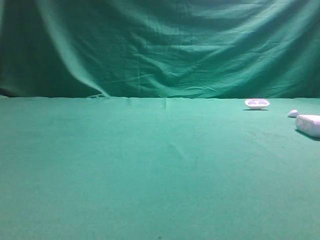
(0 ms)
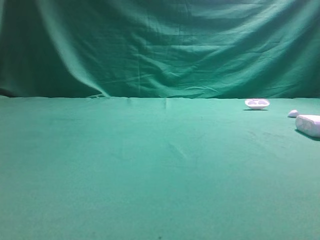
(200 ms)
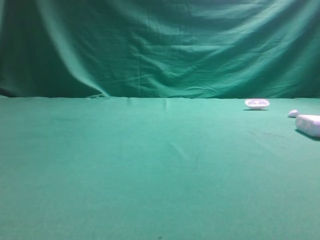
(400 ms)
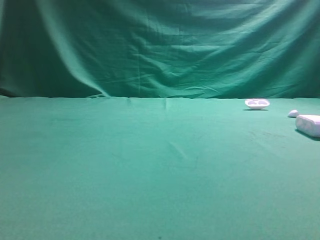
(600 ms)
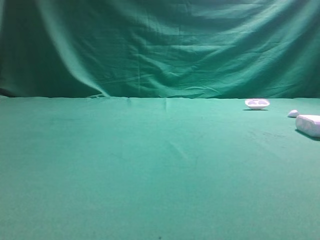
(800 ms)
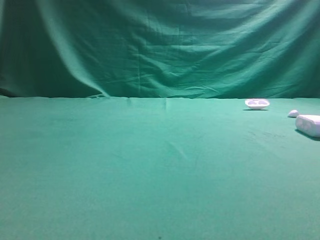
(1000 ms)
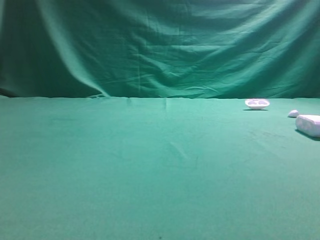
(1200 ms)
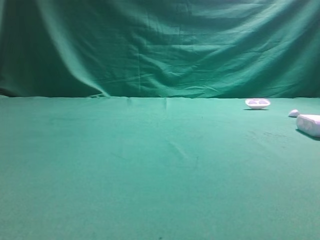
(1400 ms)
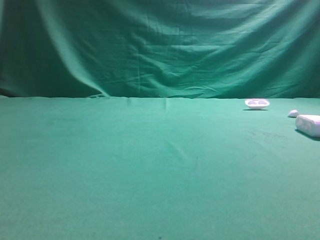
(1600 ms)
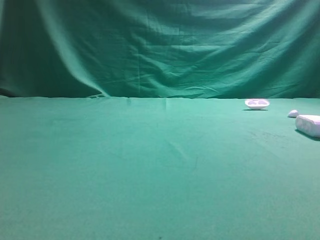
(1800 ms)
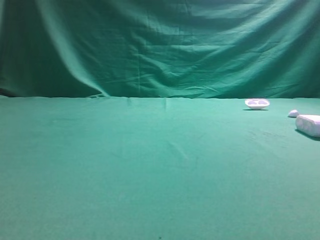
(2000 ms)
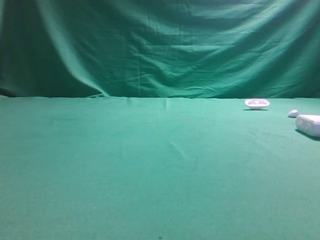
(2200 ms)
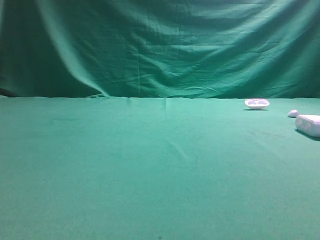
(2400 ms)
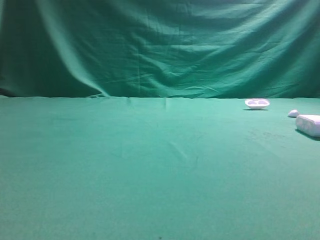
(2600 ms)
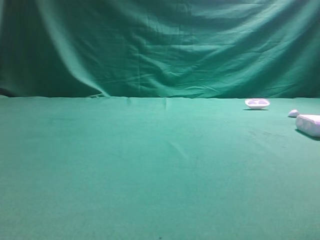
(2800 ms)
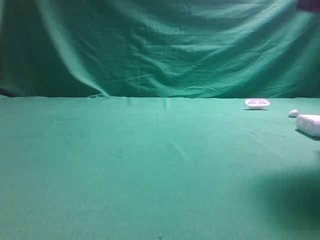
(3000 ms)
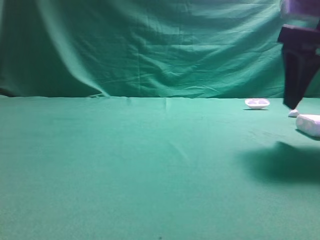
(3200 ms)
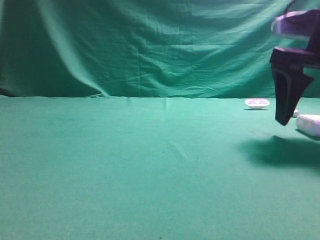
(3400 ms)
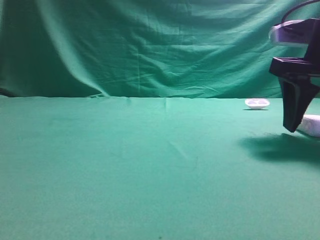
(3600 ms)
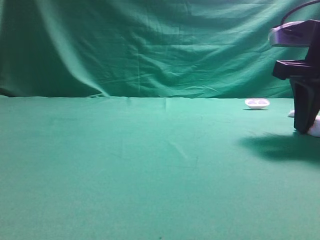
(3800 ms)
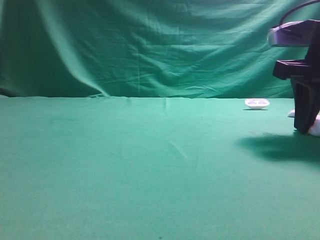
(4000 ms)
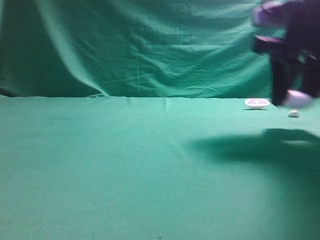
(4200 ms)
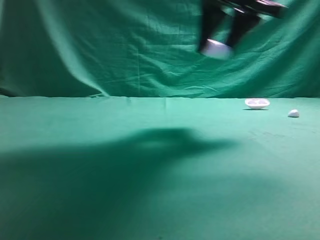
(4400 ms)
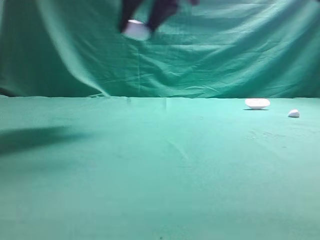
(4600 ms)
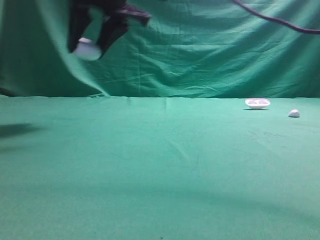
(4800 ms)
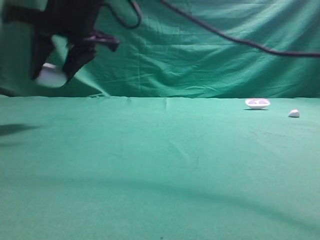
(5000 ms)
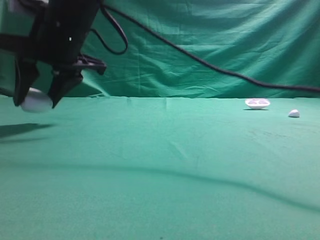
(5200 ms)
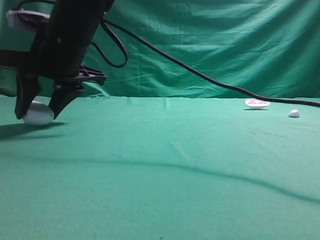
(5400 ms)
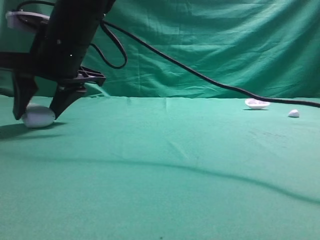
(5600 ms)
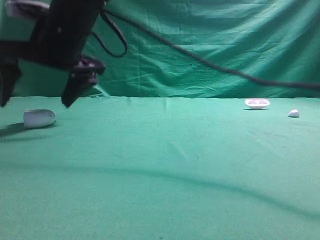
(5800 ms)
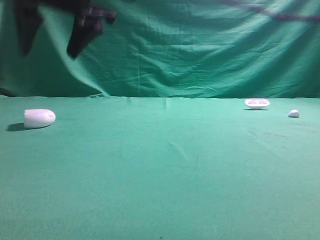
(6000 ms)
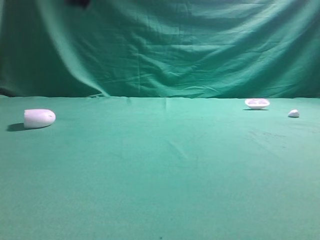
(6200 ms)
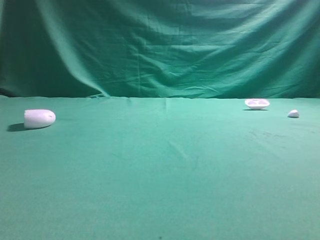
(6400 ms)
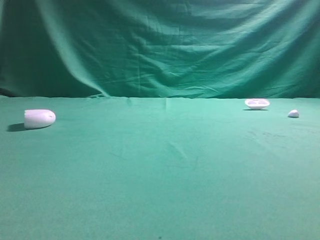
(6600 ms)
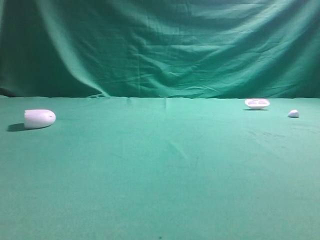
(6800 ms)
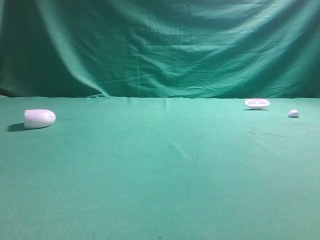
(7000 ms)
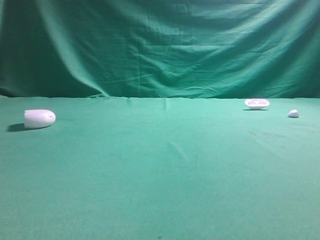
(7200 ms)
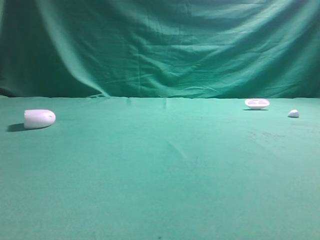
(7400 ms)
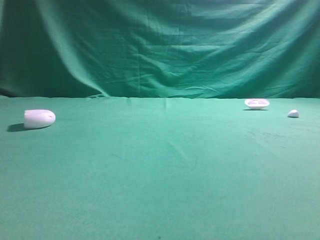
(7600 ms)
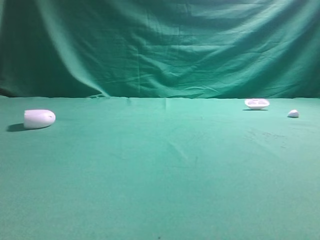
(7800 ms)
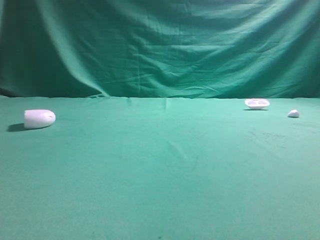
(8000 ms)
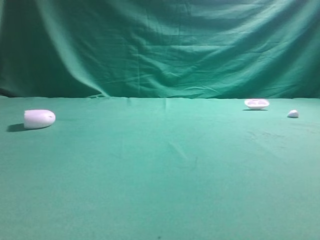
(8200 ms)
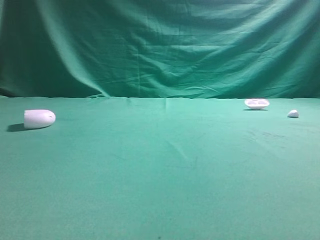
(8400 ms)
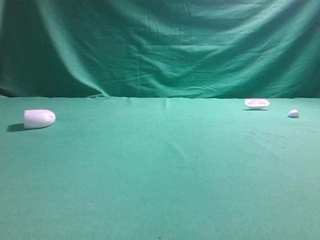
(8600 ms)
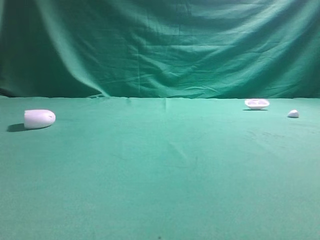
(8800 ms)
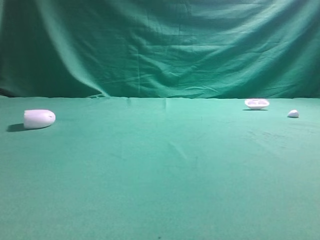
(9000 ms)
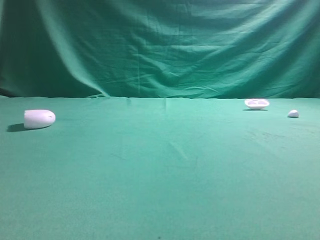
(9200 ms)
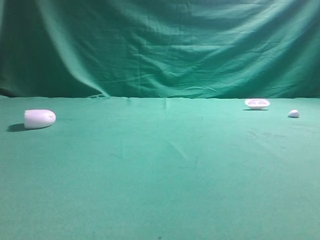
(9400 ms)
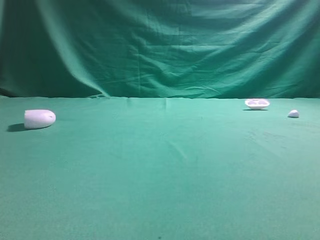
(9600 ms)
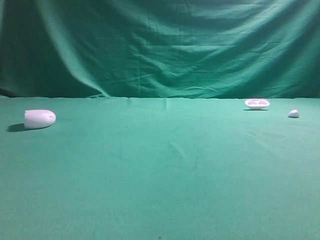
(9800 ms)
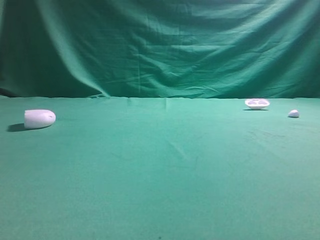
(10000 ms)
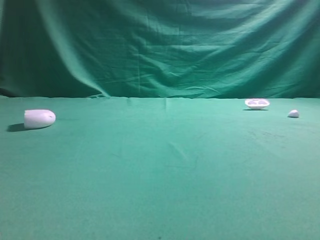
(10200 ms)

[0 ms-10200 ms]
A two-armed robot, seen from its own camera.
Step, 0 ms to 4200 ms: Grasp the Bluetooth earphone case.
Step, 4400 ms to 6000 ms: Place bluetooth earphone case on the left side of the table.

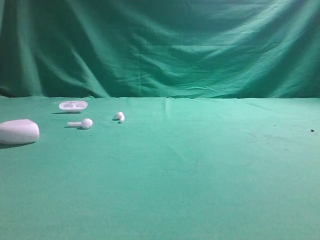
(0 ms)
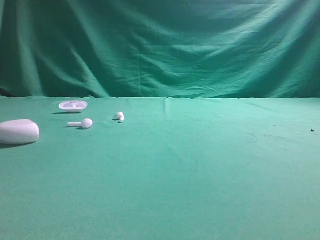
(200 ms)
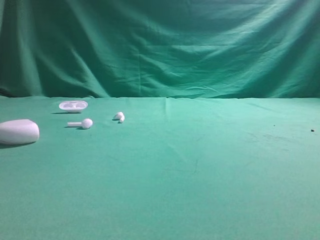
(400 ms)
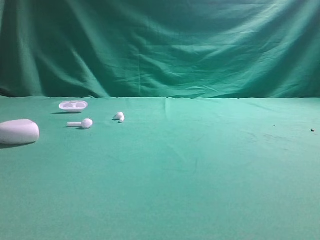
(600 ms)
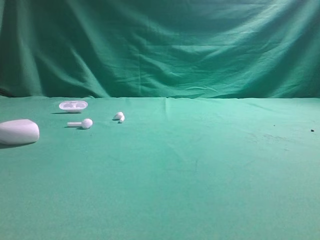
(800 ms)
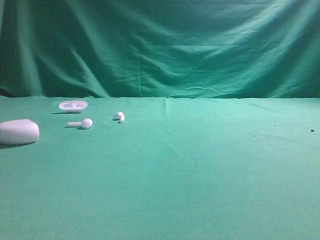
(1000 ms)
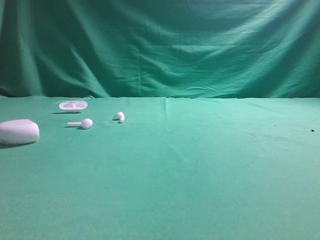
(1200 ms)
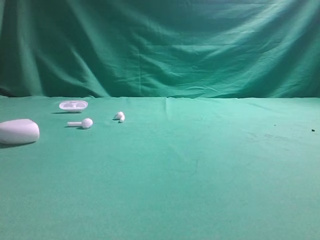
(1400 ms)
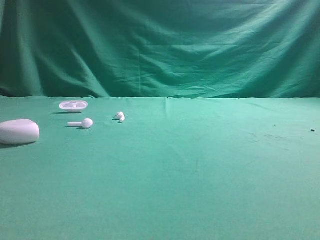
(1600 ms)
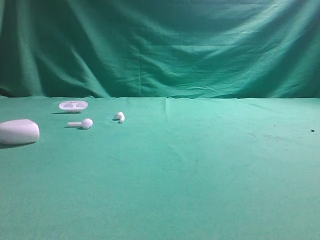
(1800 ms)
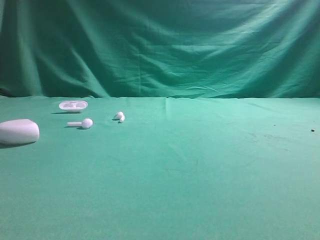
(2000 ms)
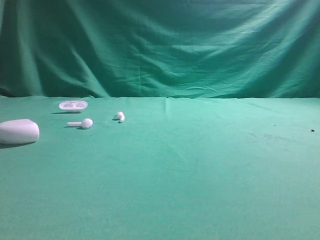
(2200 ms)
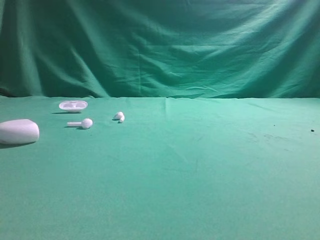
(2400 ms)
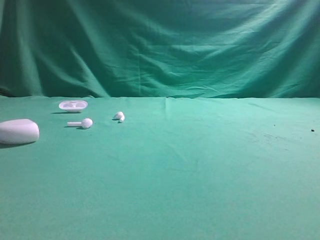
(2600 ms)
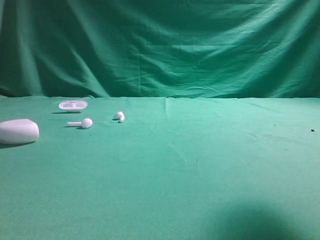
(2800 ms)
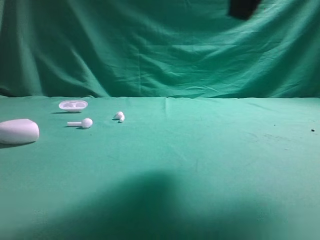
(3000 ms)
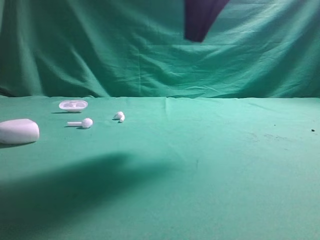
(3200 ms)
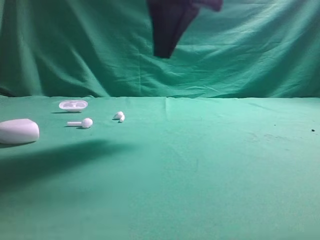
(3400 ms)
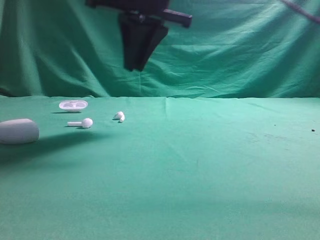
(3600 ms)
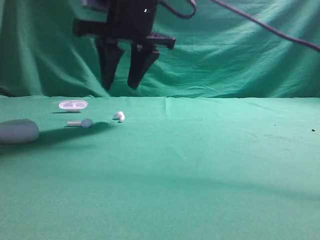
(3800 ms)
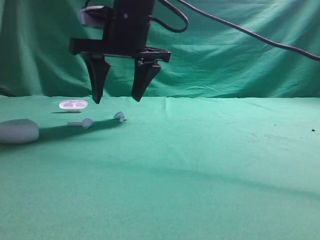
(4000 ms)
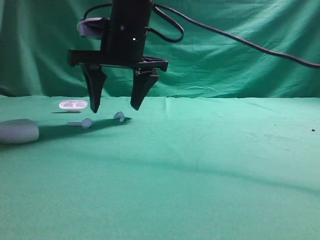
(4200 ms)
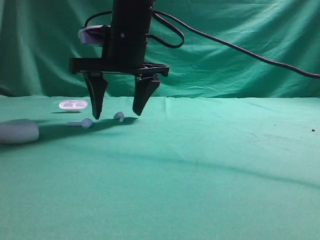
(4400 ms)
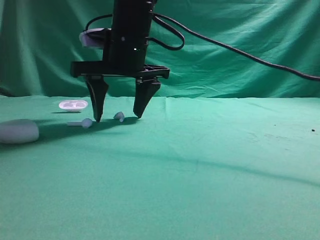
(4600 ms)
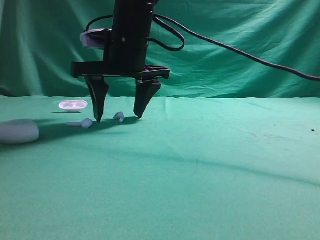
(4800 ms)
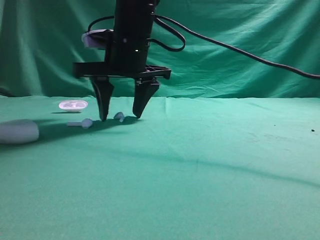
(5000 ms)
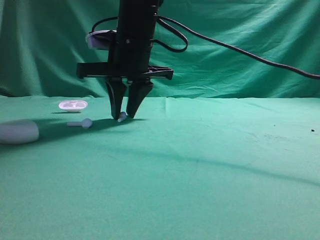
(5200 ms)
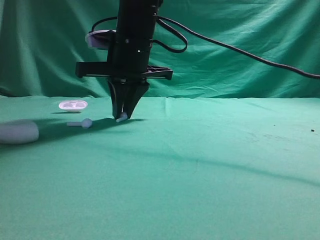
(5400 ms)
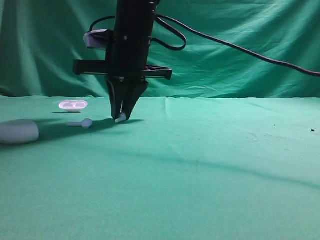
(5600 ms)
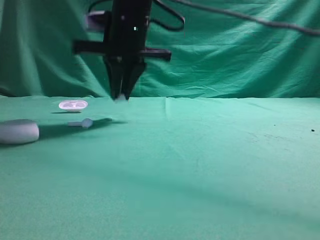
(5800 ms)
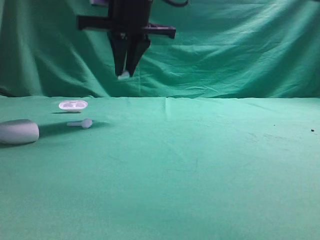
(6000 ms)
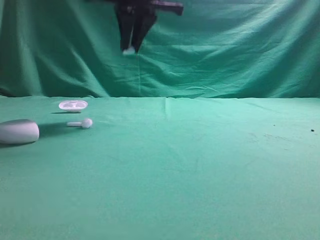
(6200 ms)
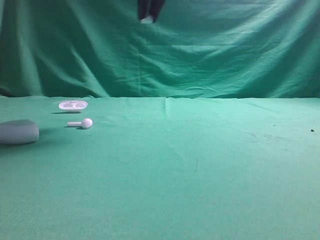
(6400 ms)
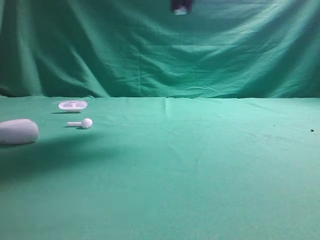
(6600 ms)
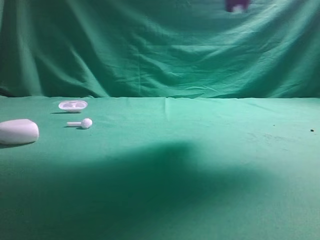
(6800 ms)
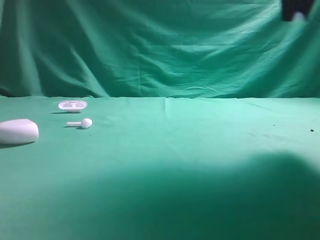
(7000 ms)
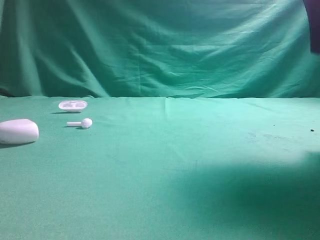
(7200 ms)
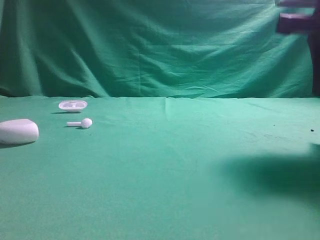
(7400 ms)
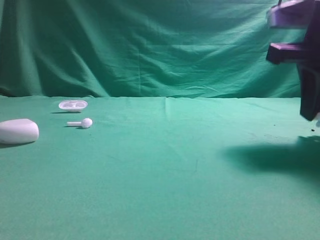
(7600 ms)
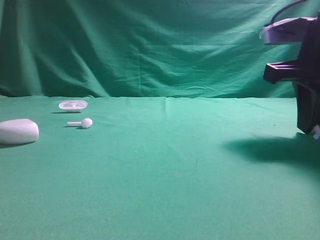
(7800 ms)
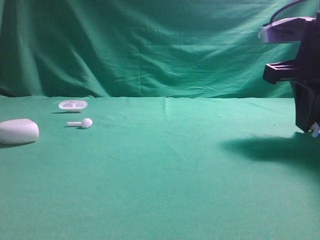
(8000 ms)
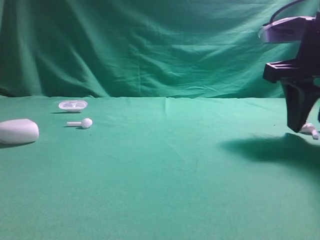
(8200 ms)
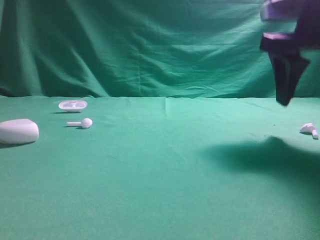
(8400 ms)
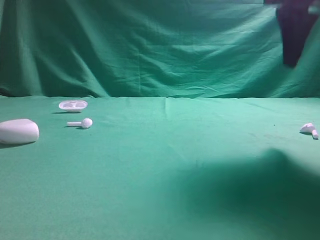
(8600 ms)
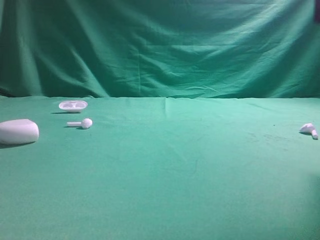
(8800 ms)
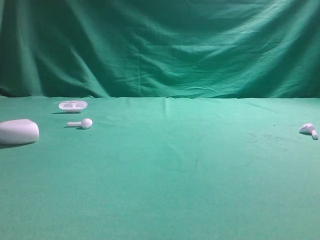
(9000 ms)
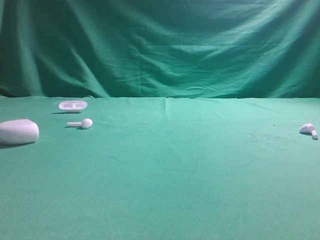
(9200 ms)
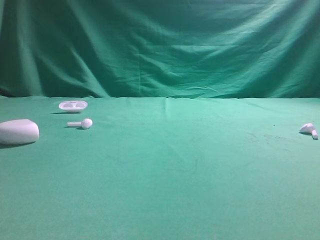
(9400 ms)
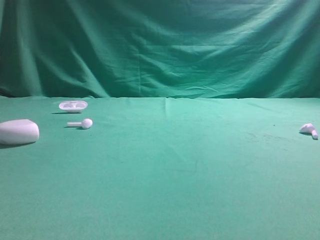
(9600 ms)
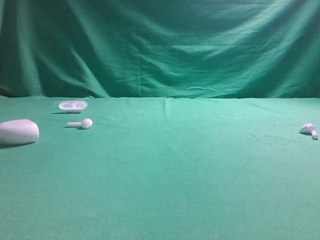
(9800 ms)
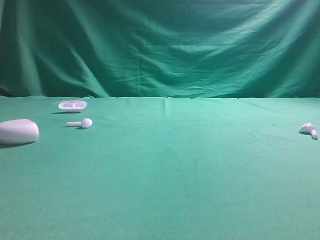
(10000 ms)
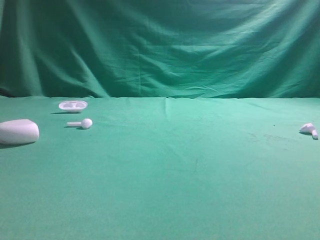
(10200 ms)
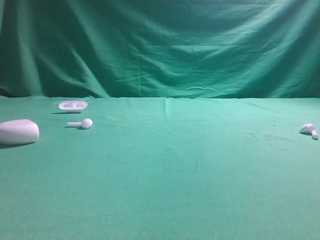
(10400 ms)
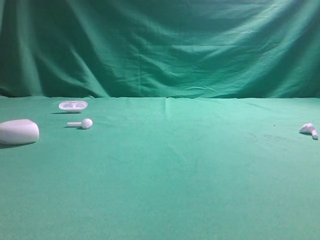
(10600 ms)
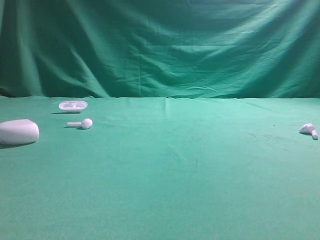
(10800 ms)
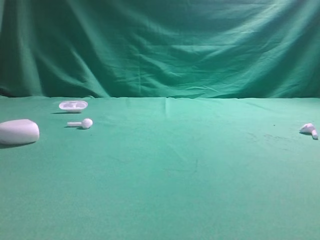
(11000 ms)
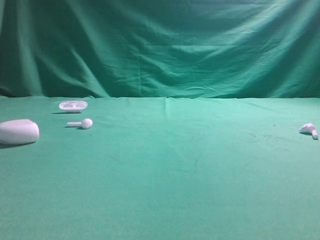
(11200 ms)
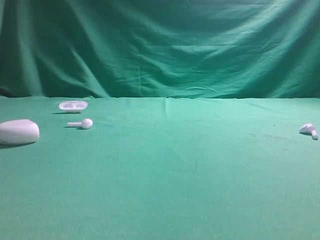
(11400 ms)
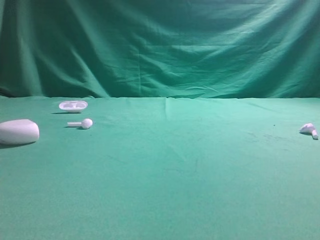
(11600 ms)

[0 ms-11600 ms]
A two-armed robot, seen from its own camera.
Step, 0 ms to 6000 ms: Grasp the Bluetooth earbud.
Step, 6200 ms to 8600 ms: Place bluetooth earbud on the right side of the table.

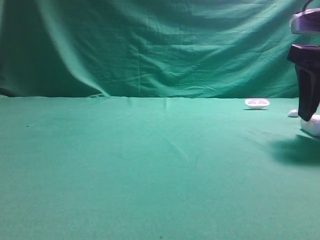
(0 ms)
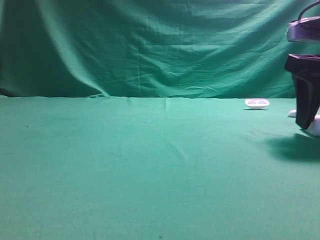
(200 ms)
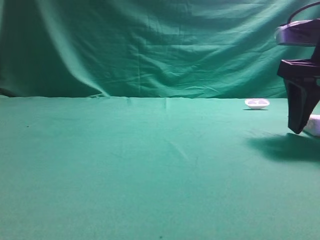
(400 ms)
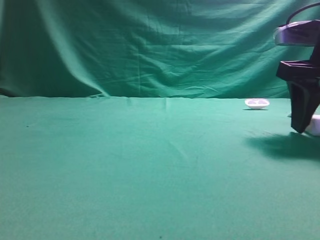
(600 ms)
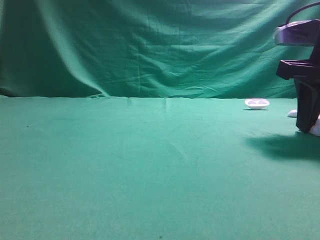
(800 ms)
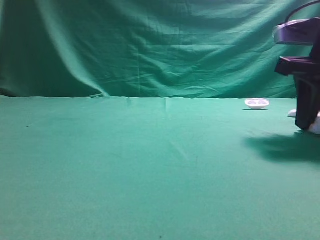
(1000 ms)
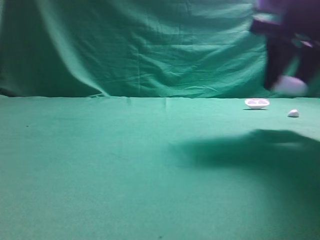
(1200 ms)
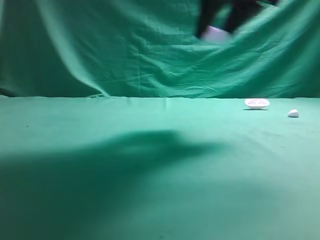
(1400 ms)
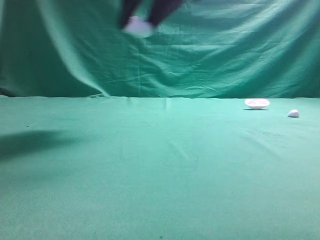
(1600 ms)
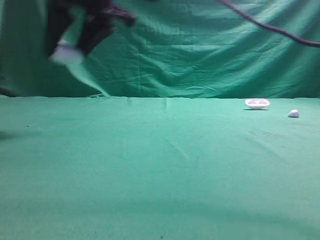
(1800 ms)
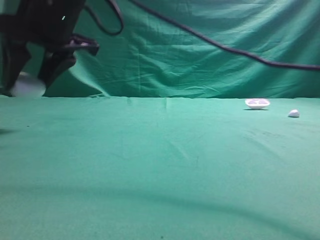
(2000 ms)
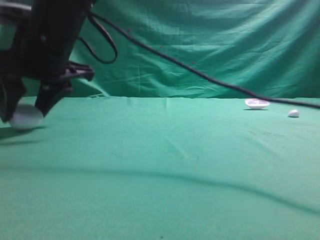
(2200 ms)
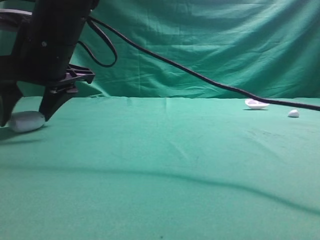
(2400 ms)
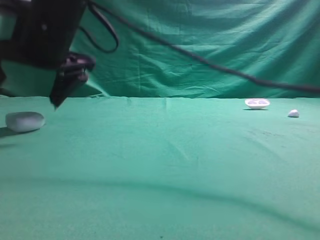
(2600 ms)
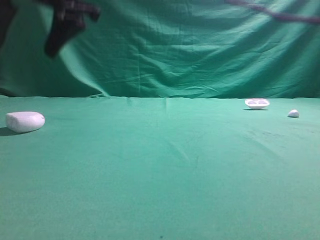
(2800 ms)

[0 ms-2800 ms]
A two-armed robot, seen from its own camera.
Step, 600 ms to 2400 ms: Place bluetooth earphone case on the left side of the table.
